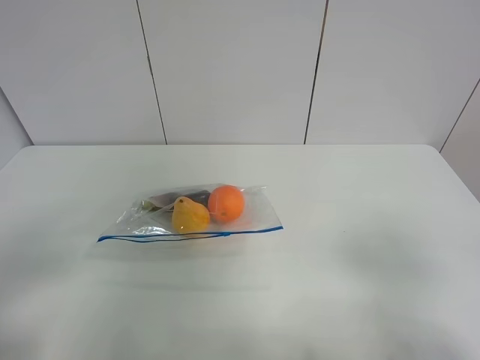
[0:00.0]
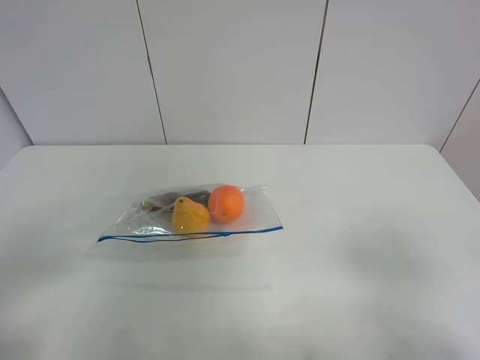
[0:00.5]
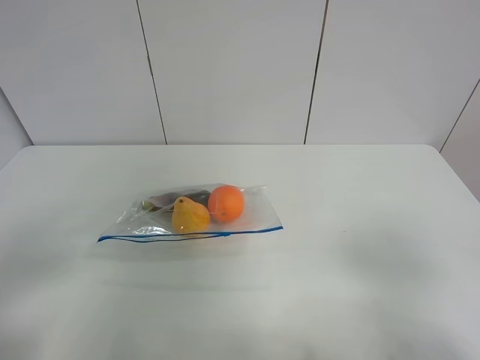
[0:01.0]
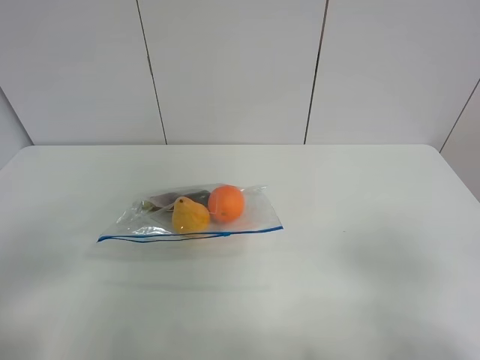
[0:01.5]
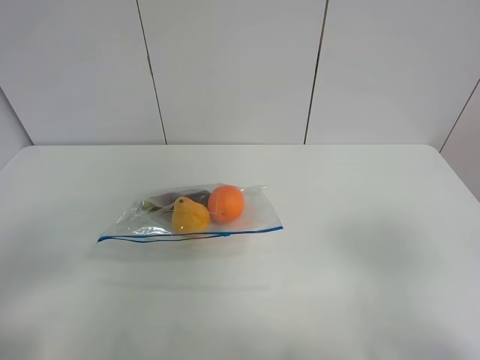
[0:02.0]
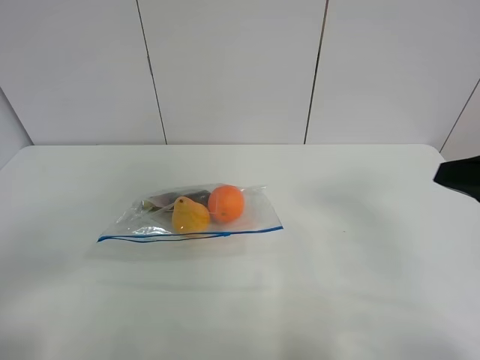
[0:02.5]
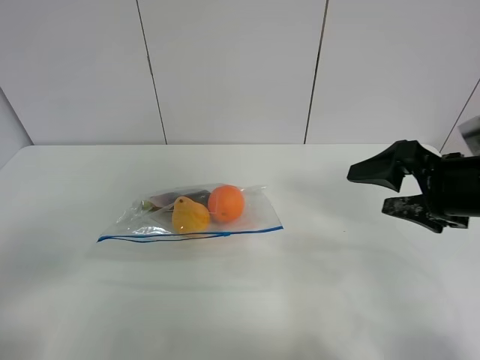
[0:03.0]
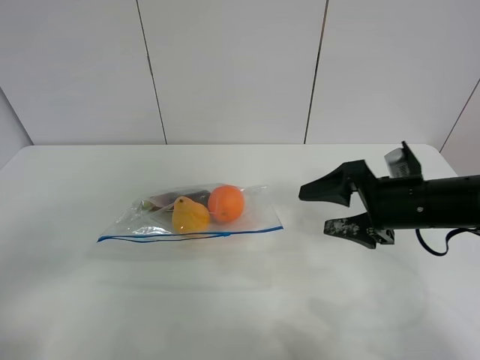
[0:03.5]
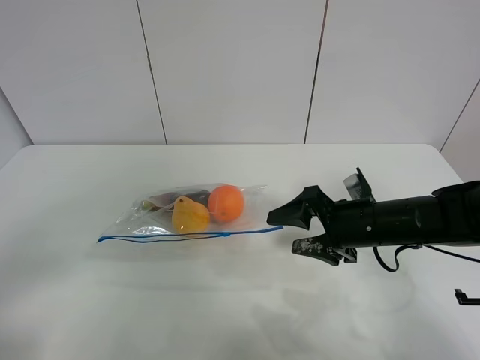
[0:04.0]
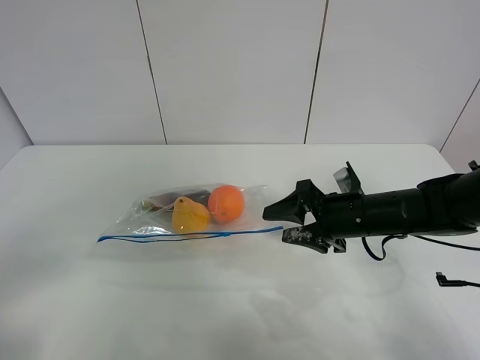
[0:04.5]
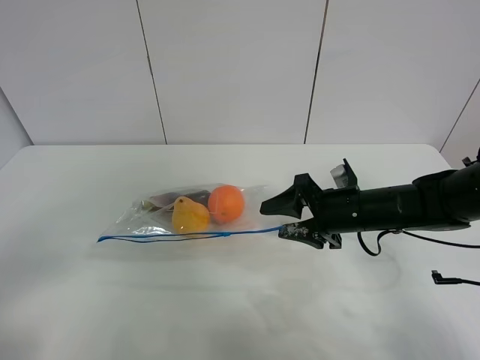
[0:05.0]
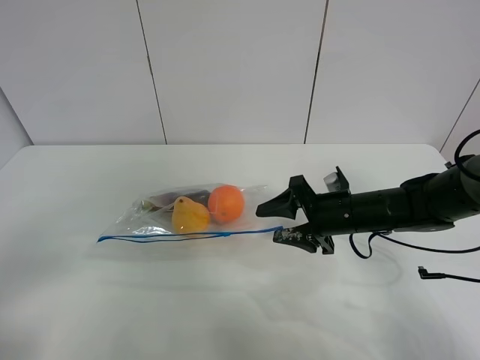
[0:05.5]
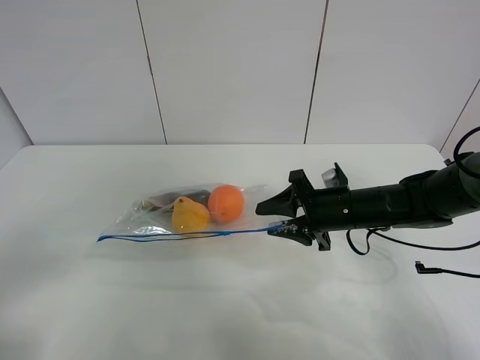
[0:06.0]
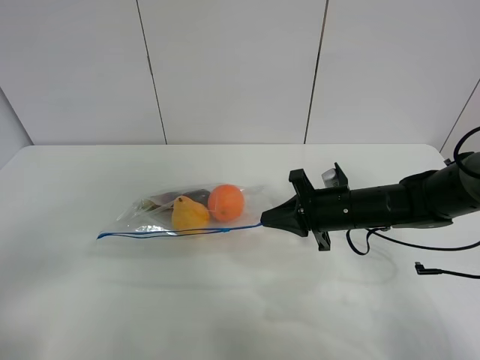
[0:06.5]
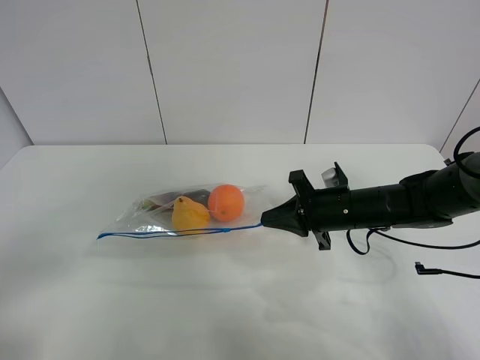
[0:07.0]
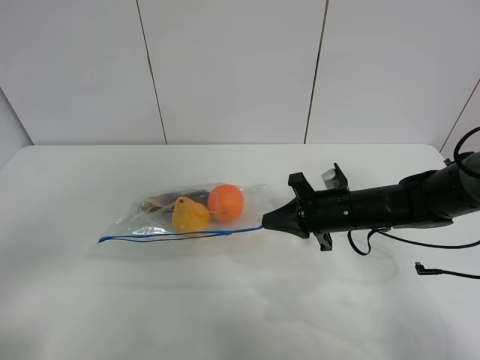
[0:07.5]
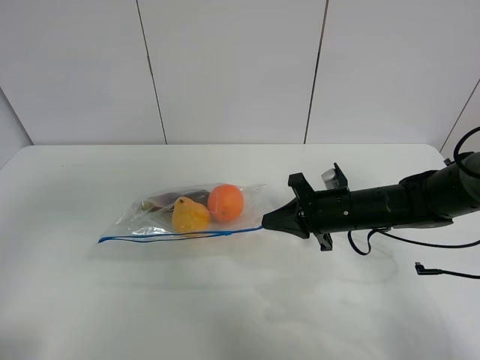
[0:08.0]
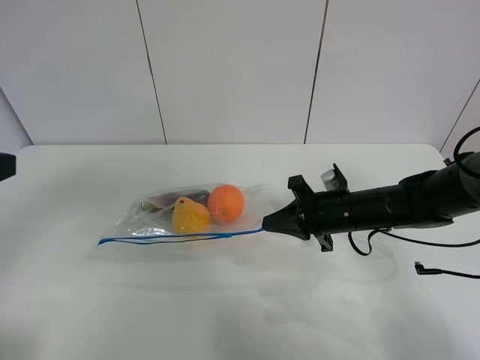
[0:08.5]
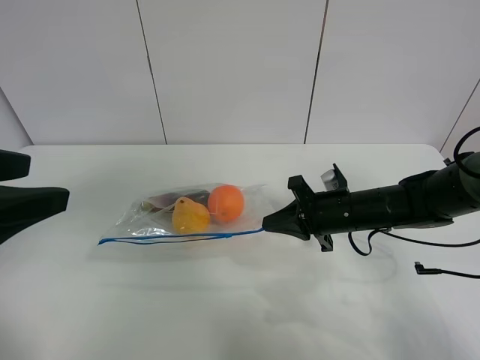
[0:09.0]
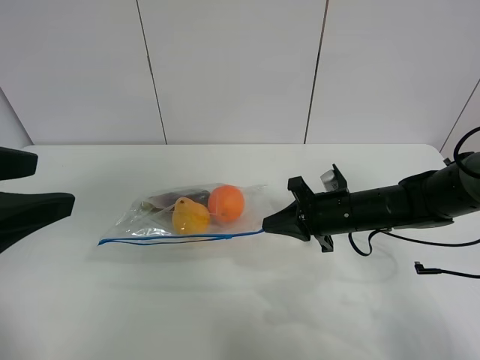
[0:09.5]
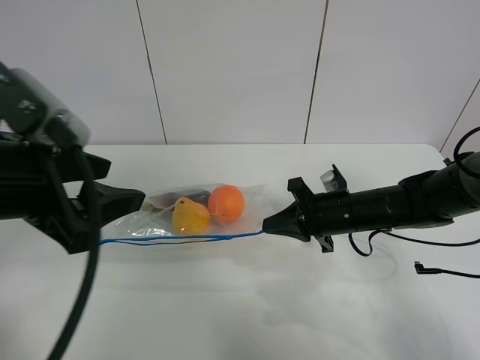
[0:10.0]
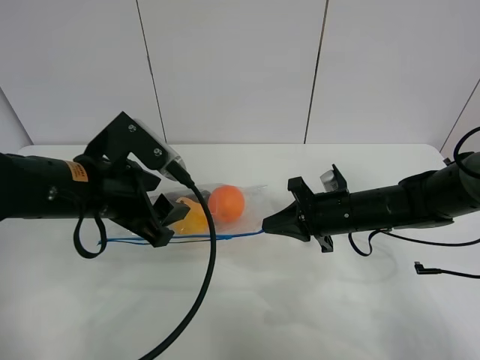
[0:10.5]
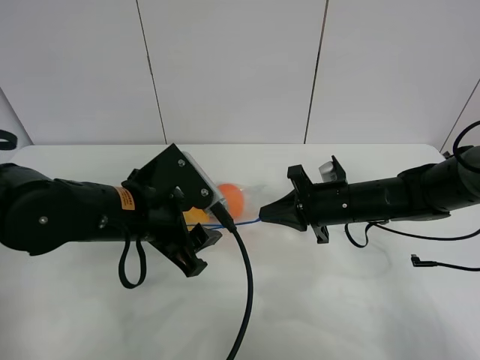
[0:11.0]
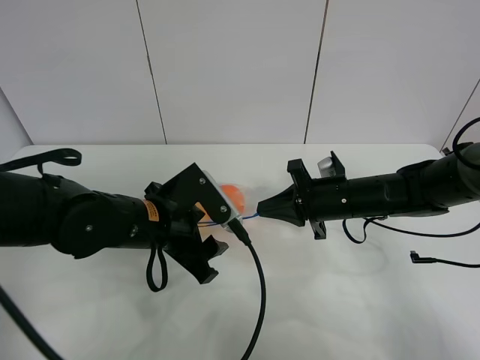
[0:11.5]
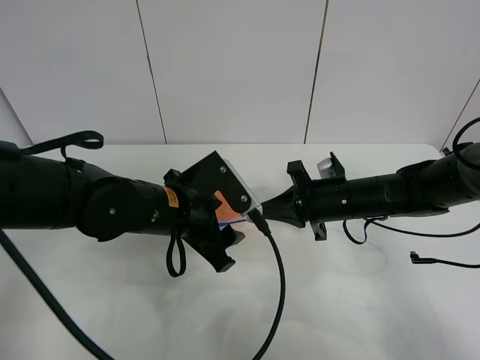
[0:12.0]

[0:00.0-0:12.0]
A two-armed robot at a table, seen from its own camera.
Step, 0:00.0 to 0:06.0: Grasp the fruit bag with right gripper.
0:02.0 to 0:04.0: The right gripper shifts some 30 cm forward and downward.
0:04.0 to 0:06.0: The grippers make only small movements.
0:06.0 to 0:08.0: The left gripper heads forward and upward, covering some 10 cm. The right gripper closes up.
0:08.0 to 0:10.0: The left gripper is displaced to the right and forward by some 15 cm.
0:10.0 to 0:12.0: The left gripper is displaced downward, to the right and forward by approximately 20 cm.

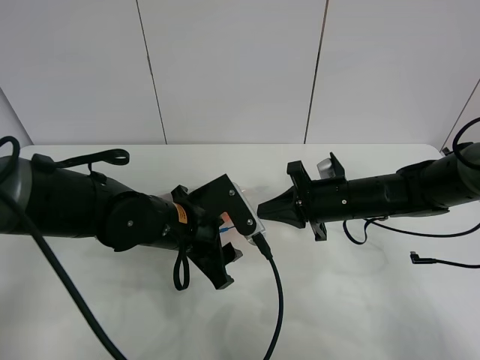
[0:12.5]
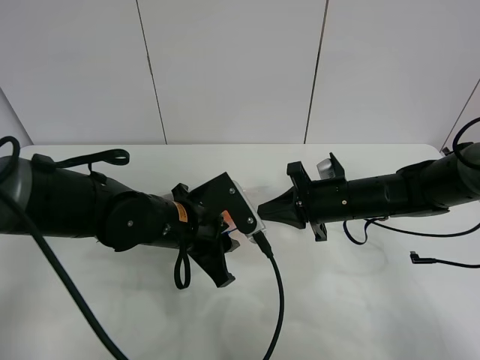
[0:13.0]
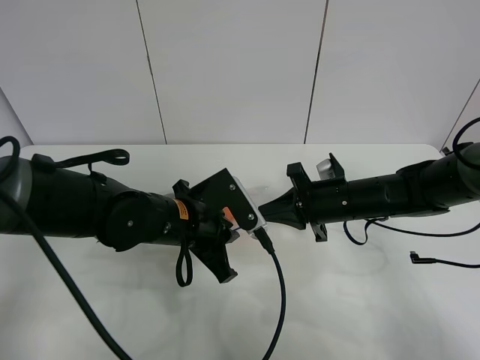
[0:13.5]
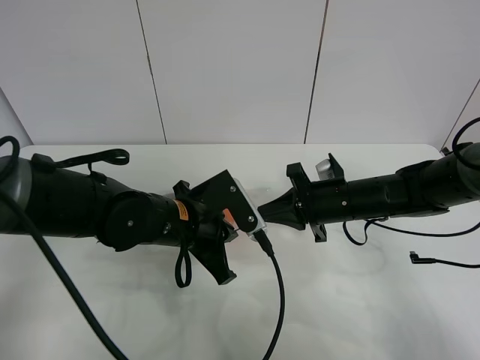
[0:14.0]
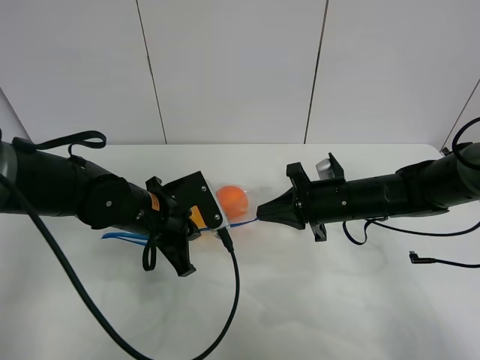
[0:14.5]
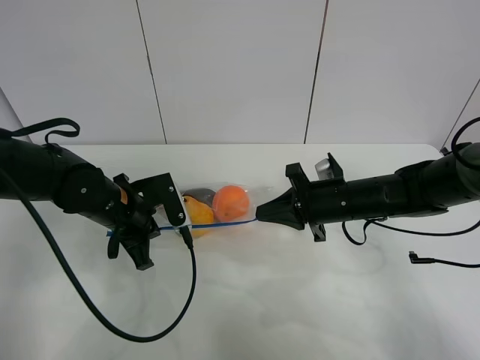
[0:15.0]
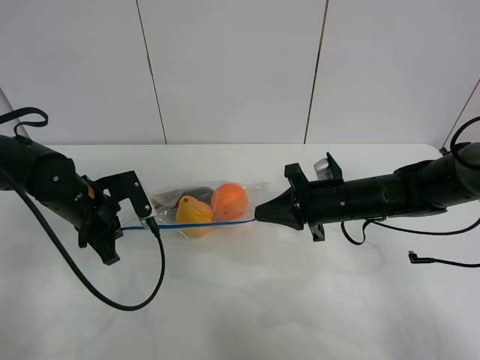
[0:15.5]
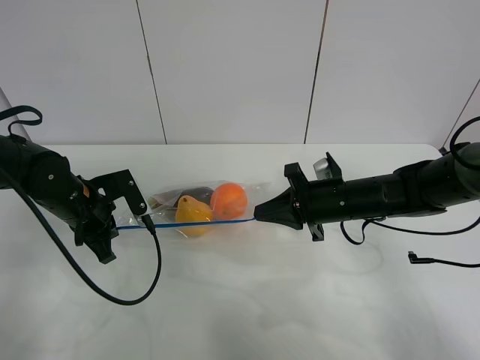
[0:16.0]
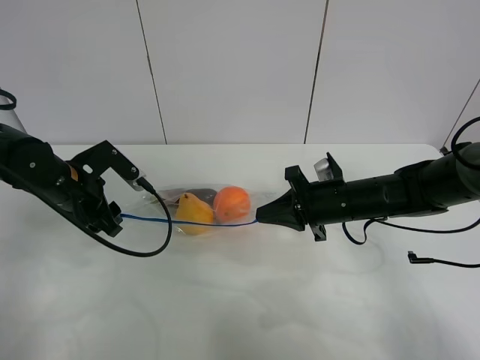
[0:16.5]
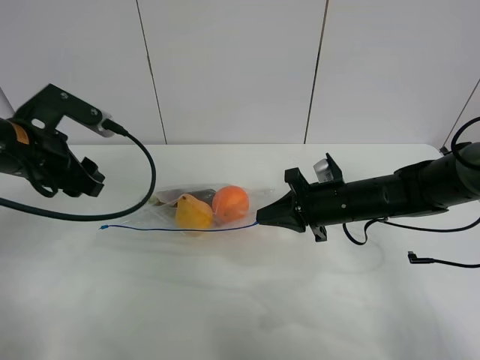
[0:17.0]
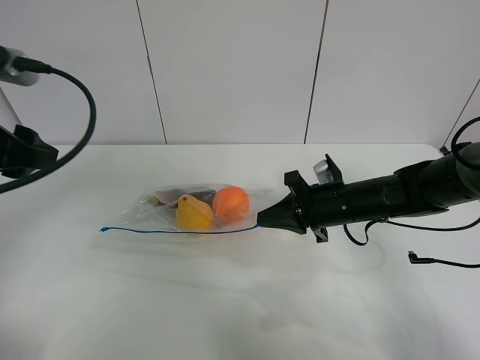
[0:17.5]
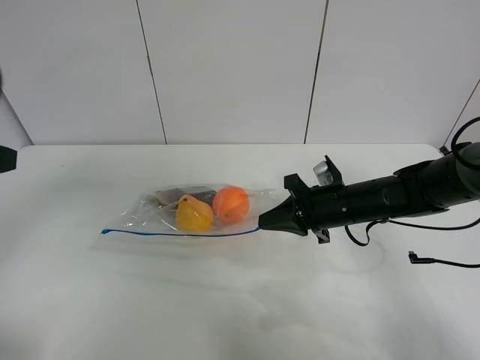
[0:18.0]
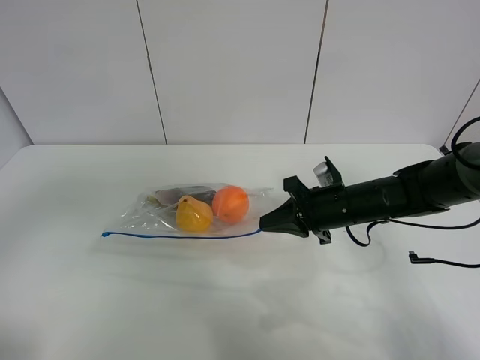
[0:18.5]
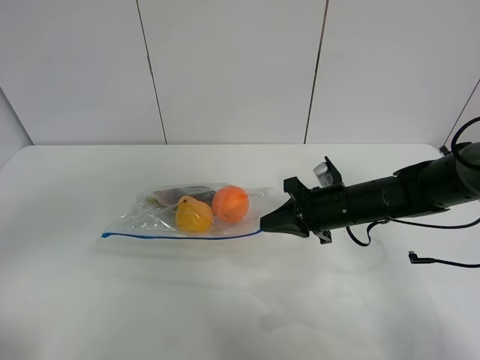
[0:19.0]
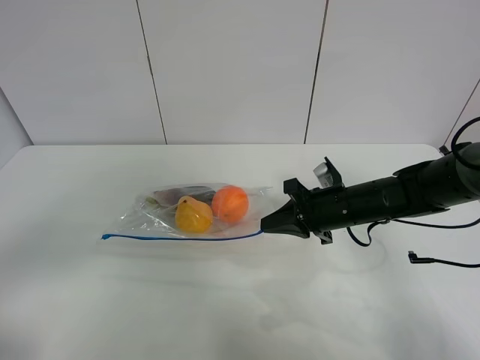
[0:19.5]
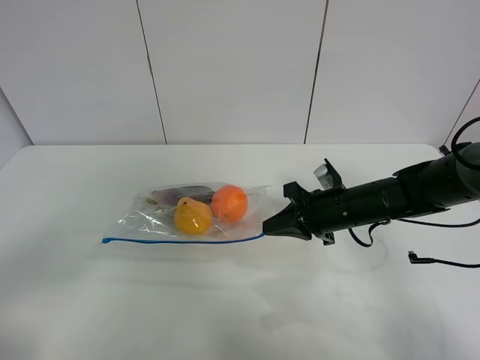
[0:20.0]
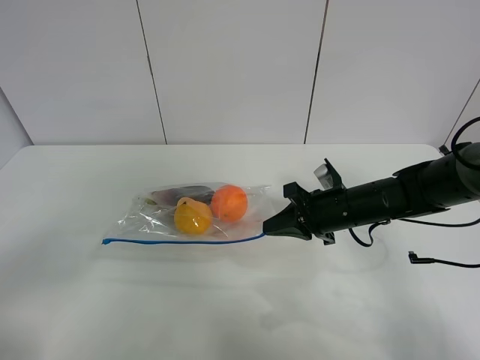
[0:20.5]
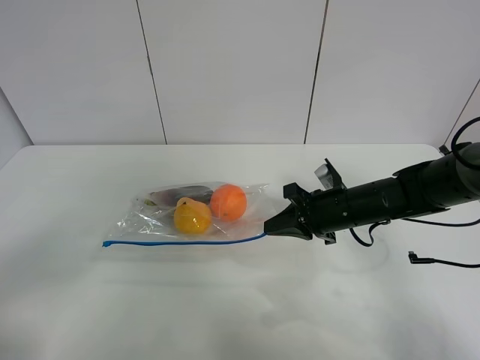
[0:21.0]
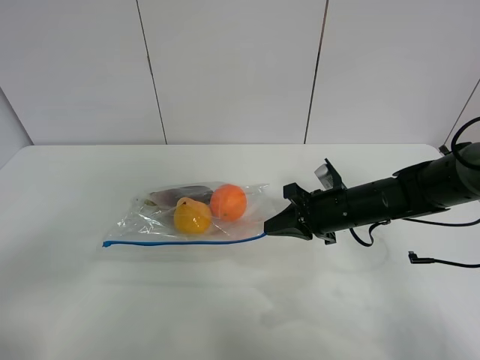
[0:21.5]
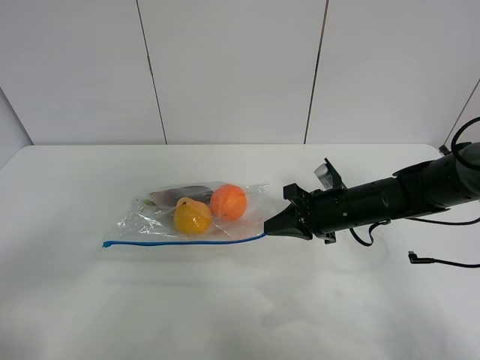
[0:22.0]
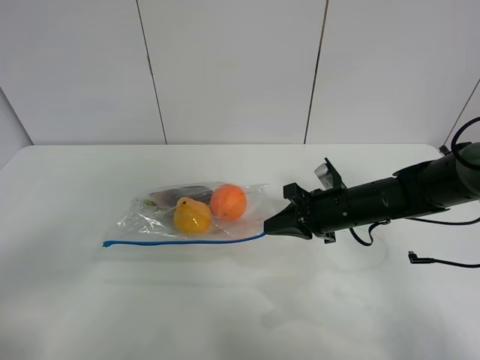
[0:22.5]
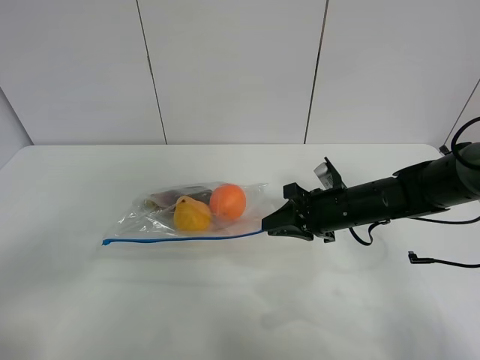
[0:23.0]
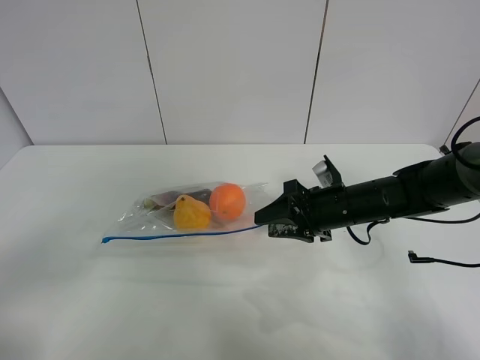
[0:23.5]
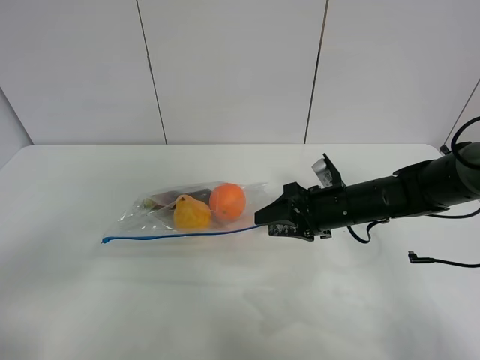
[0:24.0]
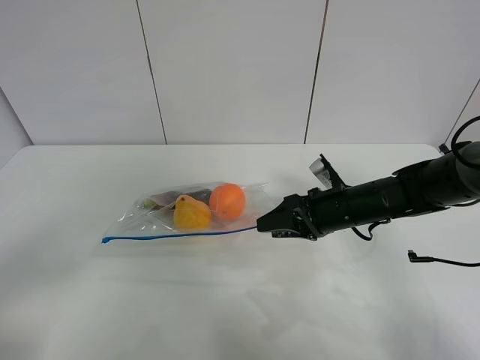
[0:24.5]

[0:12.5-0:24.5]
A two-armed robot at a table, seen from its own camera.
Step, 0:12.5 to 0:16.5: Pull the fruit bag with left gripper.
0:12.5 to 0:14.5: The left gripper changes place by roughly 5 cm, and closes.
0:14.5 to 0:16.5: The left gripper goes approximately 10 cm to the left, and opens up.
0:16.5 to 0:18.5: The left gripper goes roughly 30 cm backward and upward.
0:18.5 to 0:20.5: The left gripper shifts about 10 cm downward and backward.
0:20.5 to 0:22.5: Neither gripper changes place.
0:22.5 to 0:24.5: The right gripper opens up.

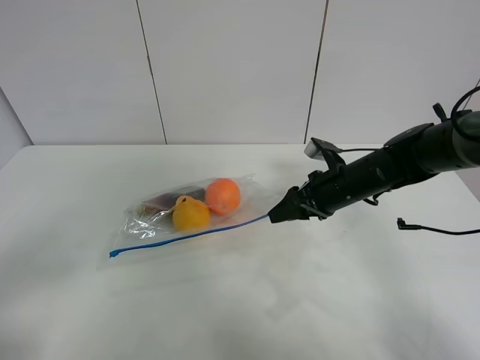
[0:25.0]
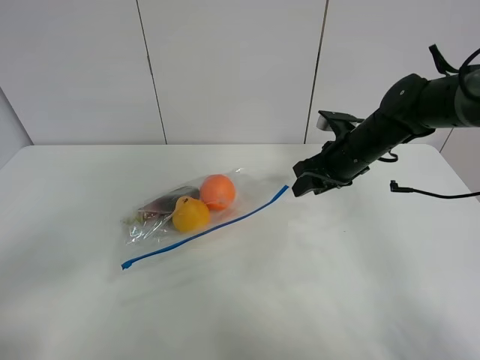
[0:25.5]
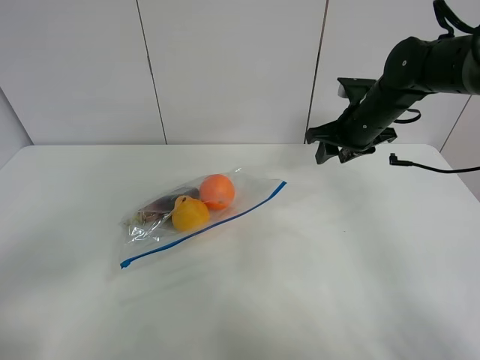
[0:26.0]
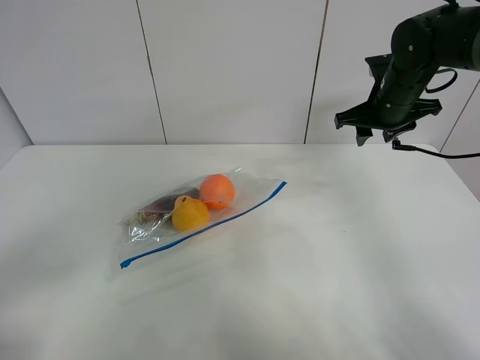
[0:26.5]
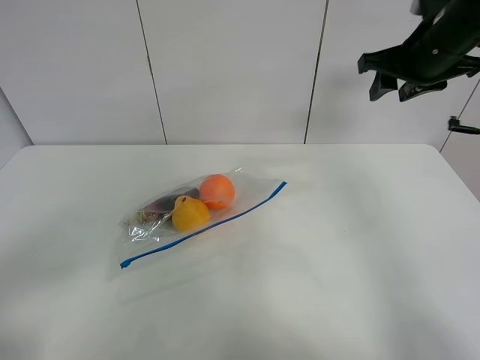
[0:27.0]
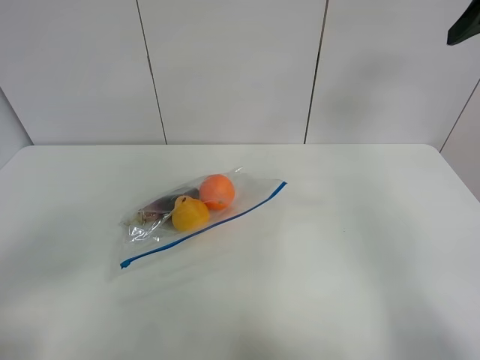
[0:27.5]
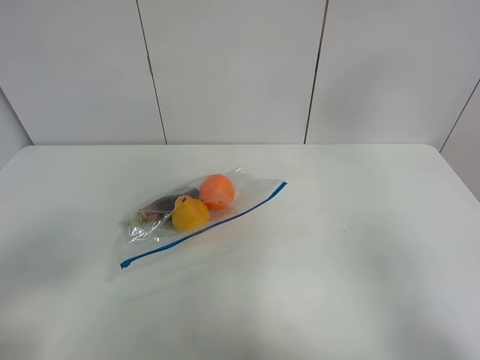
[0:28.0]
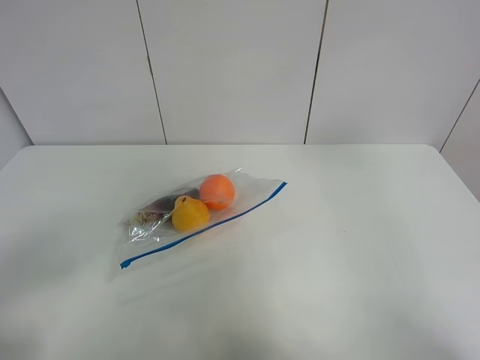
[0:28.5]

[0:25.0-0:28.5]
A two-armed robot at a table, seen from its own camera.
0:25.0 to 0:27.0: The right gripper travels upward and to the right by about 20 cm.
0:27.0 to 0:28.5: The right gripper travels backward and upward by about 30 cm.
